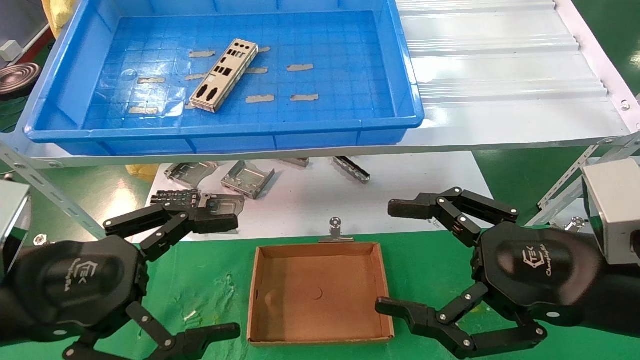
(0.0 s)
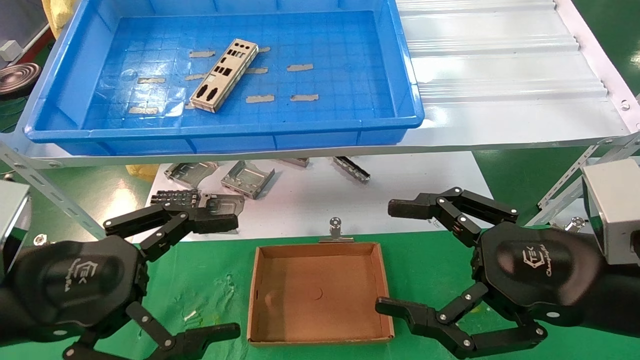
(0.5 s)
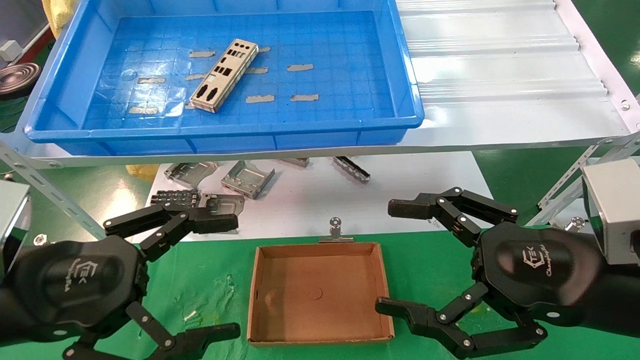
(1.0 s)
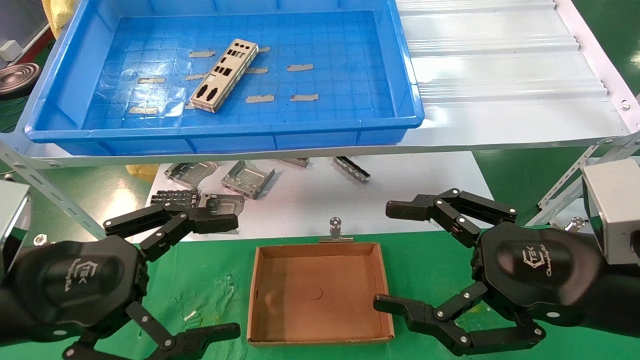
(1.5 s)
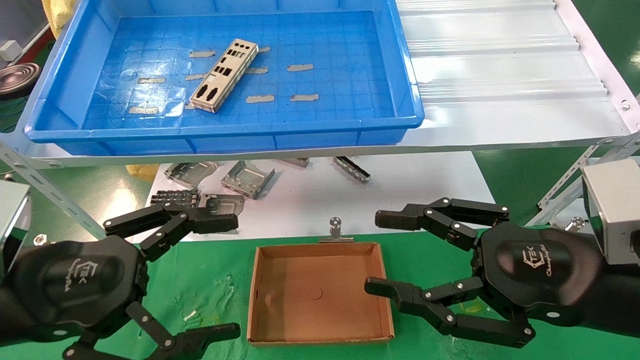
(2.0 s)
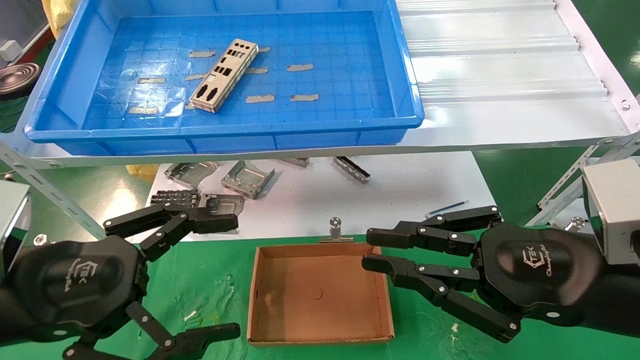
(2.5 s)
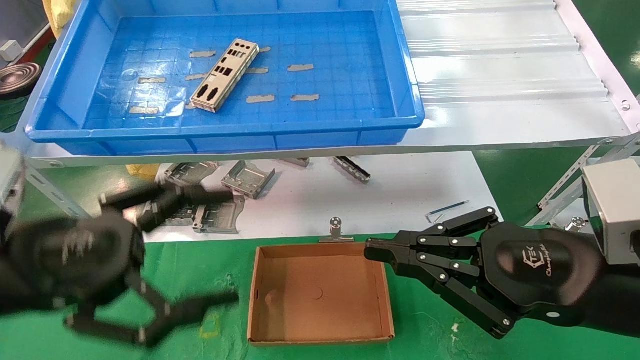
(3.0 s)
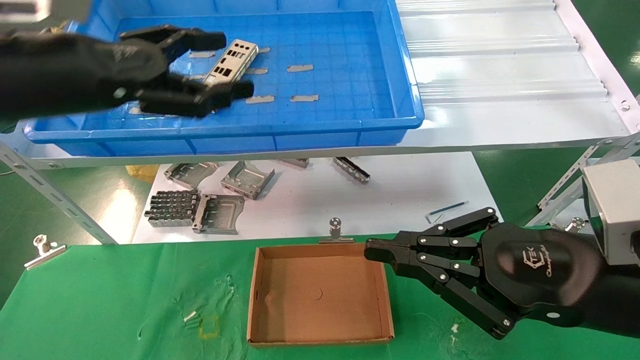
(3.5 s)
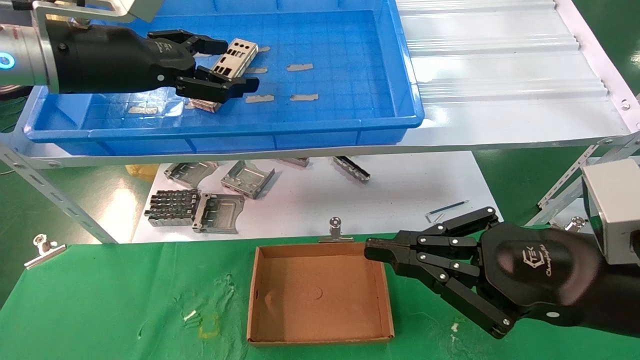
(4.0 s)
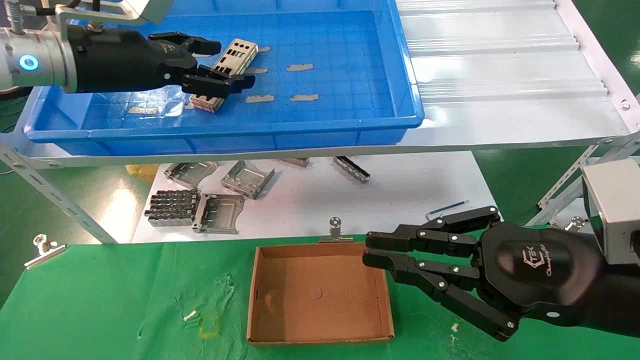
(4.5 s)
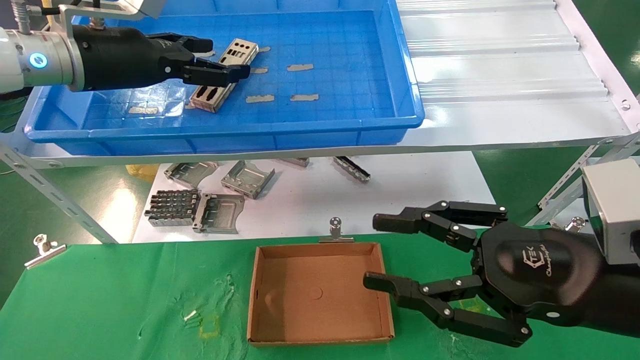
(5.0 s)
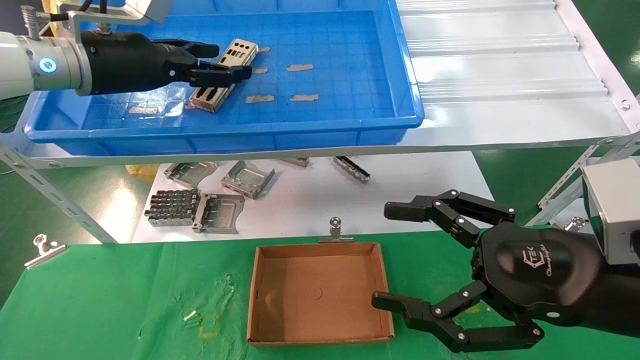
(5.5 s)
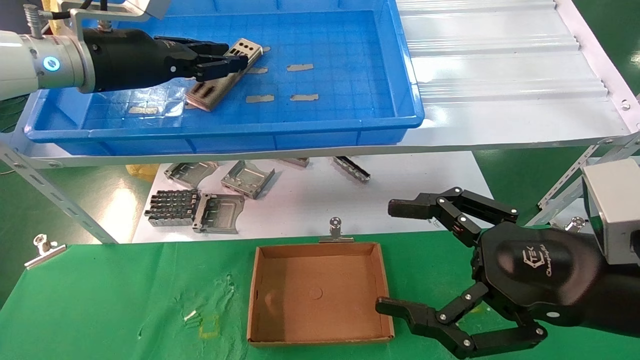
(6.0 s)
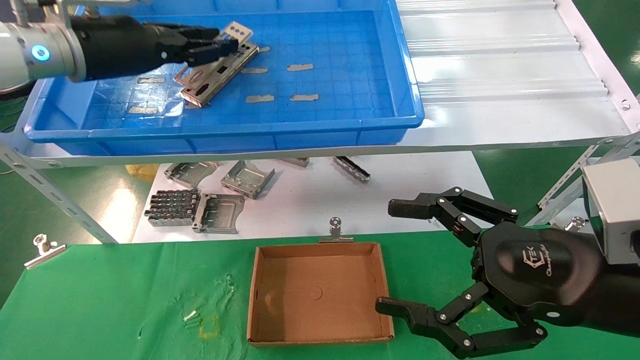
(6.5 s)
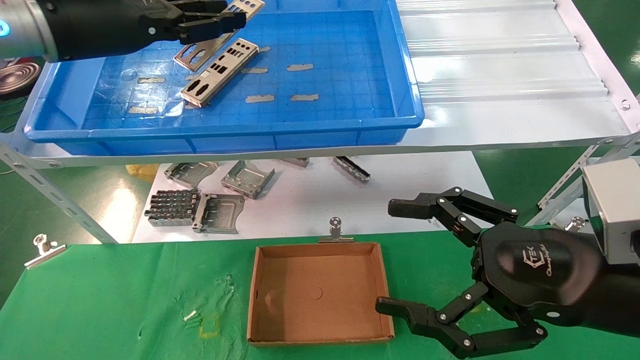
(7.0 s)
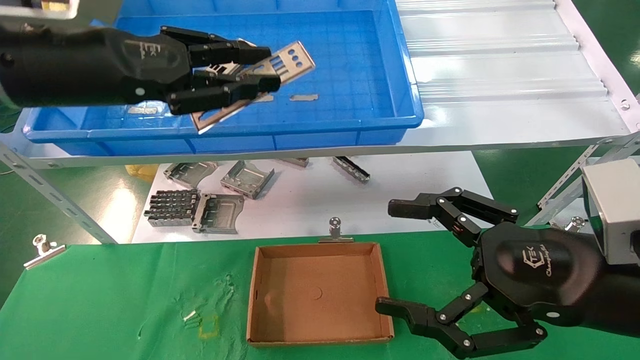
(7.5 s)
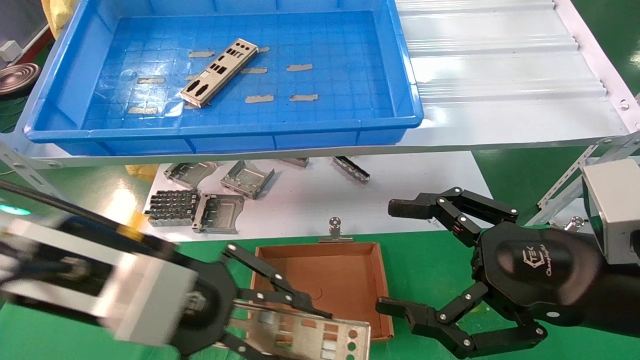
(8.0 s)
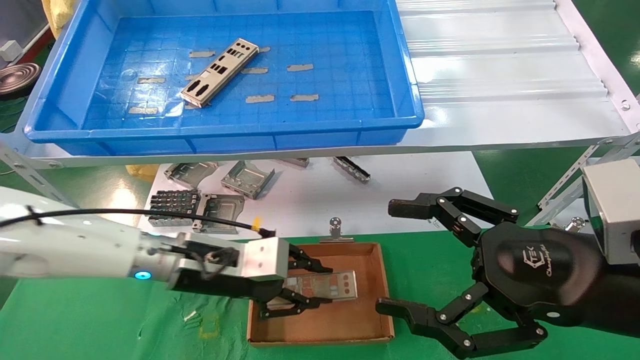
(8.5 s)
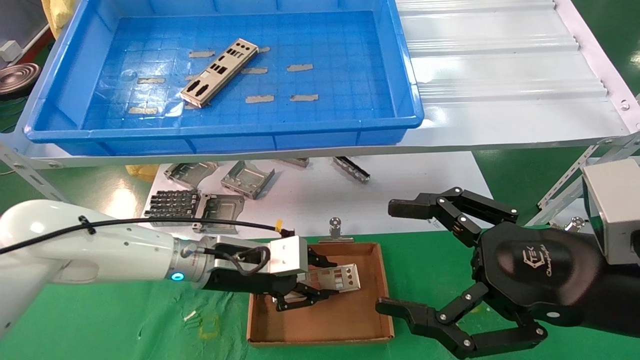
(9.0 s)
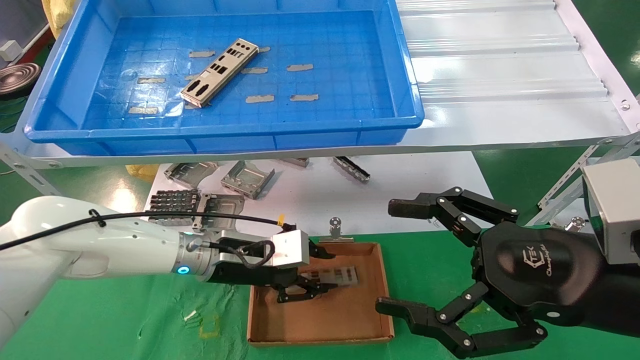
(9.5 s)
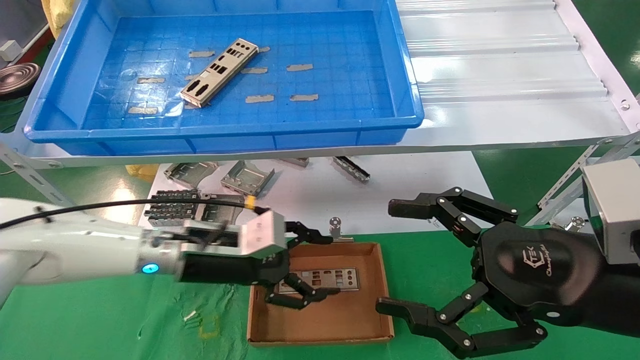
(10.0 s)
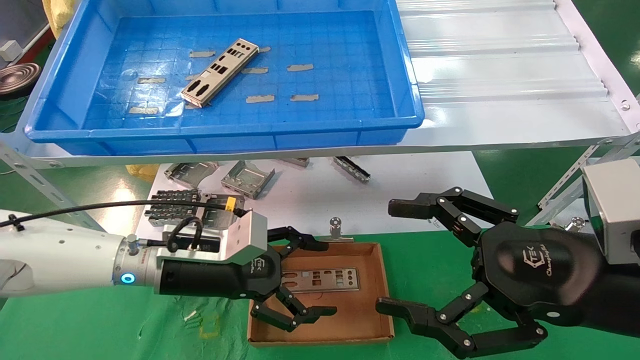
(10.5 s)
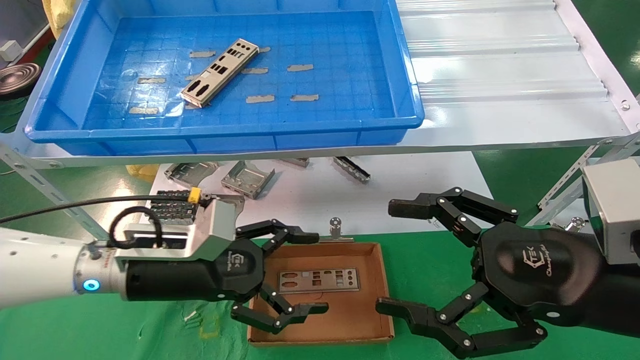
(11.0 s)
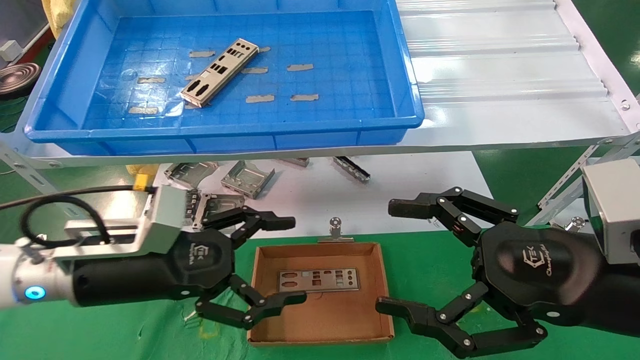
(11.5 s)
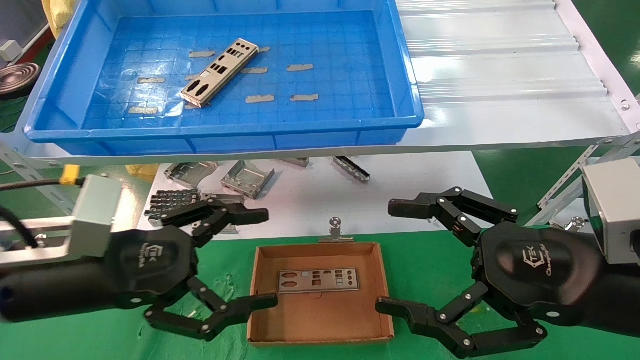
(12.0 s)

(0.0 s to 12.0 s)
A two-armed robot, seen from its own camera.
Task of the whole recording: pick up the parts on the tray and put them in the cardboard box.
Step, 3.5 s - 6.0 s: Pick up the IO bracket from the container box.
Step, 6.5 s - 9.5 s: Place the IO bracket into the ingredient slot.
0.0 s - 2.0 s: The two grippers keep their place.
2.0 s - 4.0 s: The left gripper is displaced upward and forward by roughly 25 cm. The right gripper closes.
4.0 s - 6.0 s: The left gripper closes up; the right gripper opens up.
6.0 s - 8.0 s: The left gripper shifts some 20 cm downward and backward.
8.0 s - 10.0 s: The left gripper is displaced downward, forward and to the right by roughly 15 cm, and opens its fingers.
10.0 s - 12.0 s: The left gripper heads backward, to the left and upward, covering about 15 cm, and opens up.

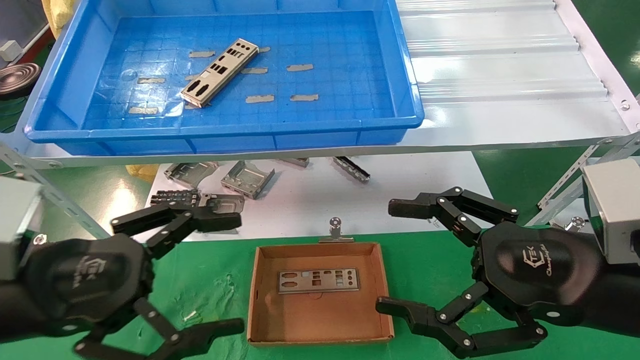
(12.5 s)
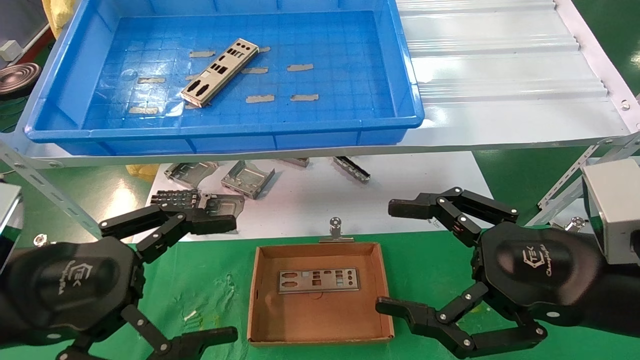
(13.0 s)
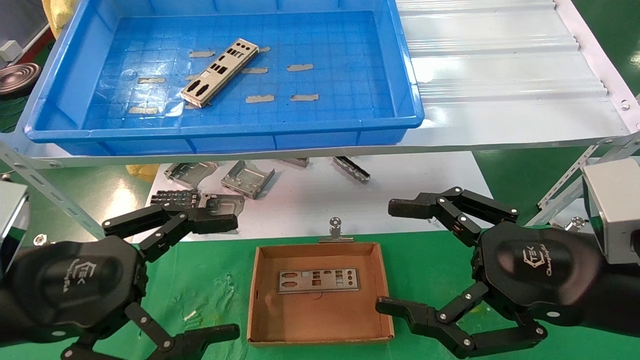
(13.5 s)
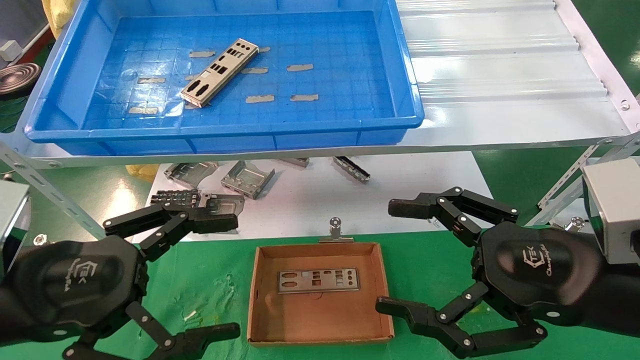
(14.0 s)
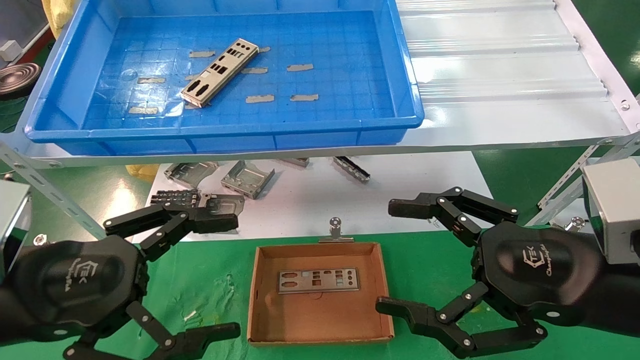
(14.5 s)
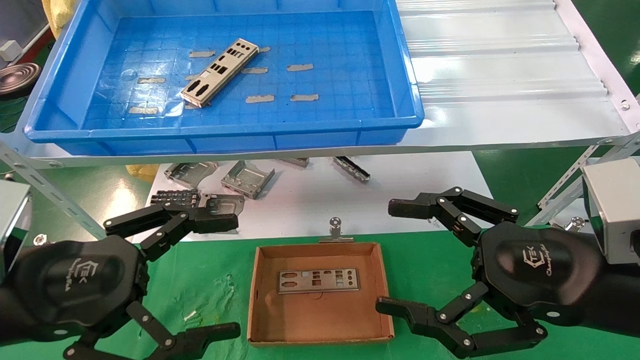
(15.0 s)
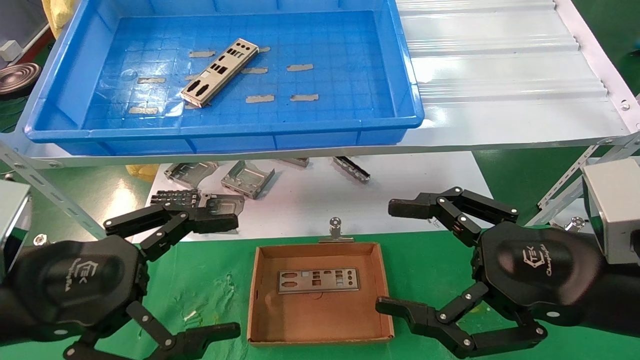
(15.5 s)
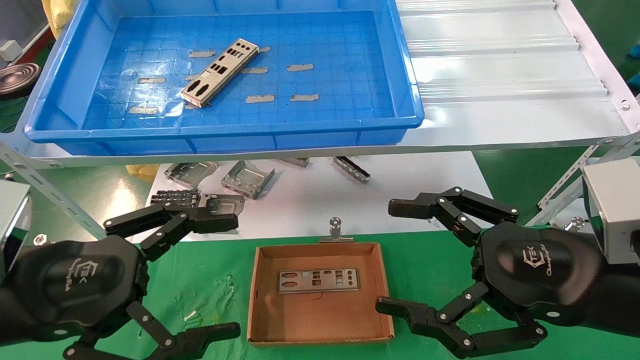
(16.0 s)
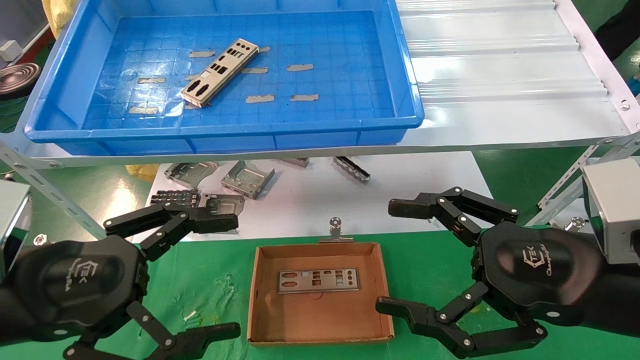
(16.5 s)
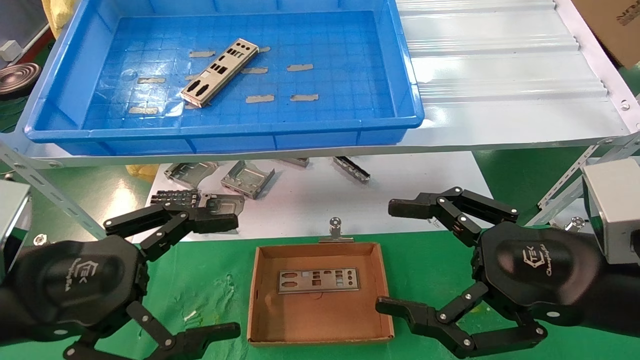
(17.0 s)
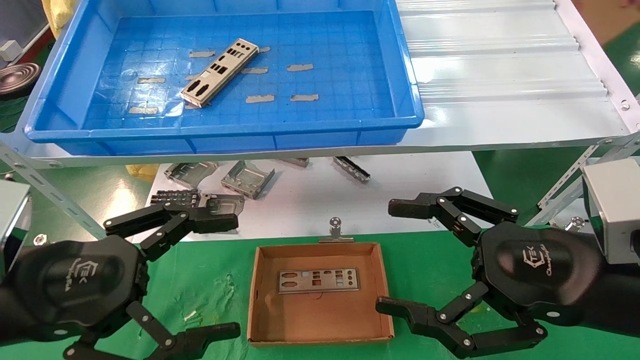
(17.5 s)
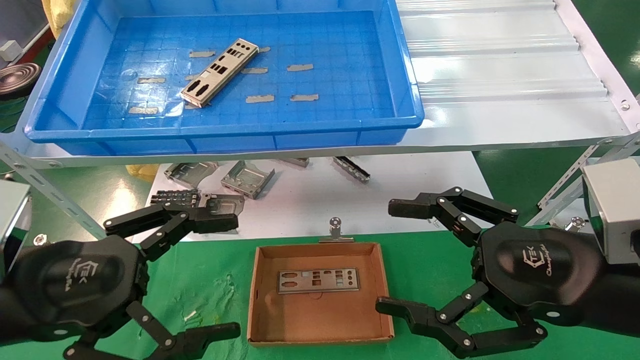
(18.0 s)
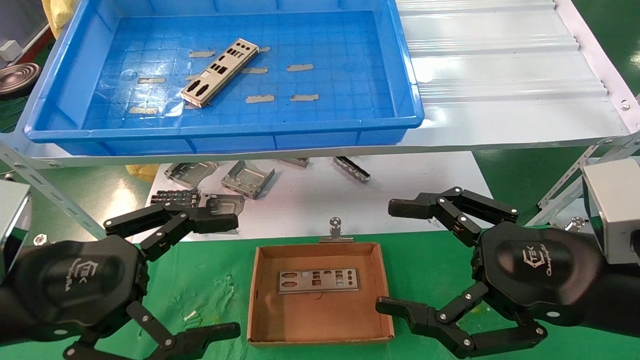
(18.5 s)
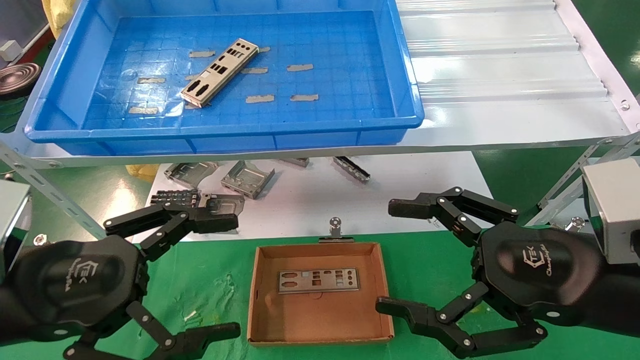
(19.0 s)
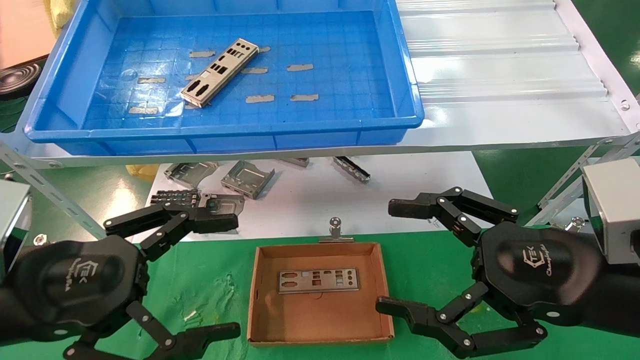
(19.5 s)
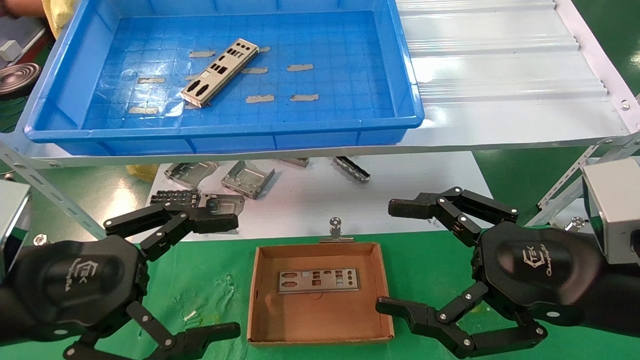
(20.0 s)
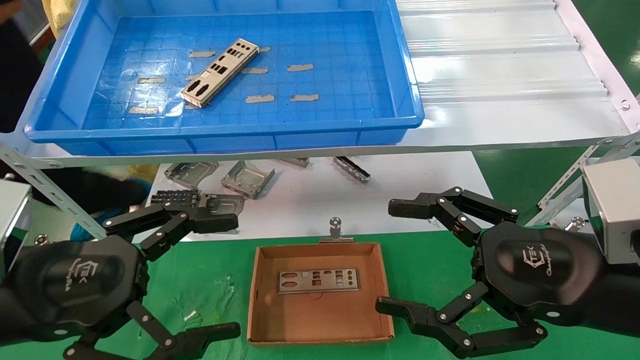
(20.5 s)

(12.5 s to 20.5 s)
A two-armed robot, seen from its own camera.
Task of the whole recording: pick up the parts on the tray and put them in the cardboard box.
12.5 s - 20.5 s: Both grippers stay about where they are.
